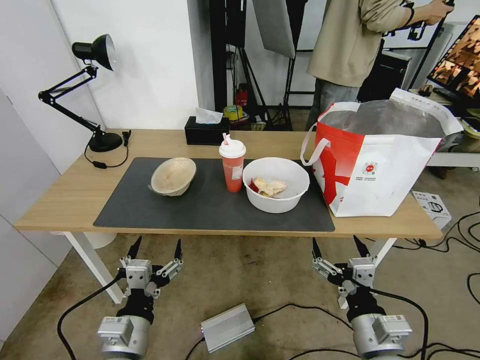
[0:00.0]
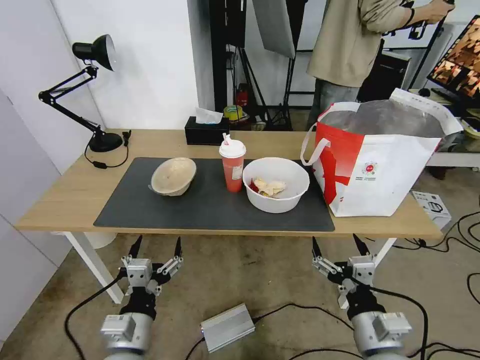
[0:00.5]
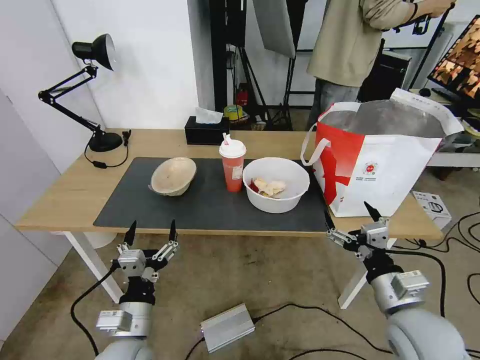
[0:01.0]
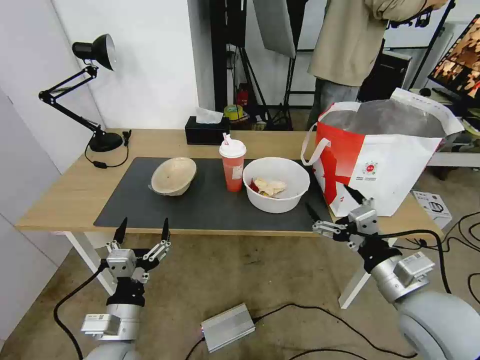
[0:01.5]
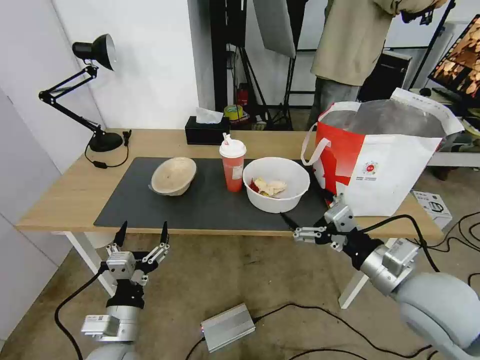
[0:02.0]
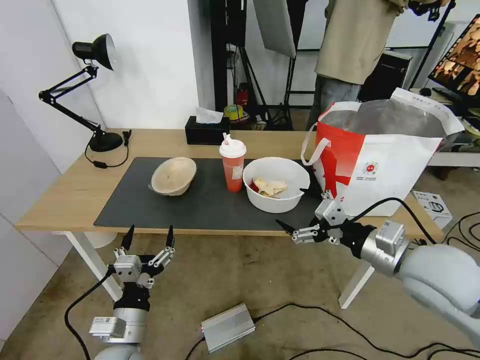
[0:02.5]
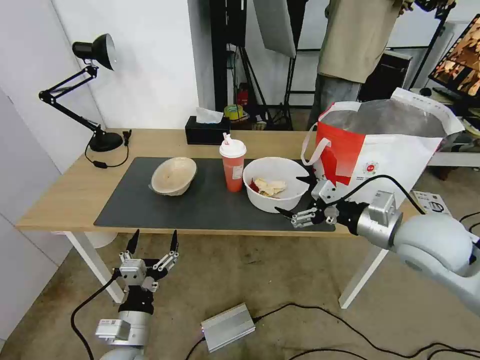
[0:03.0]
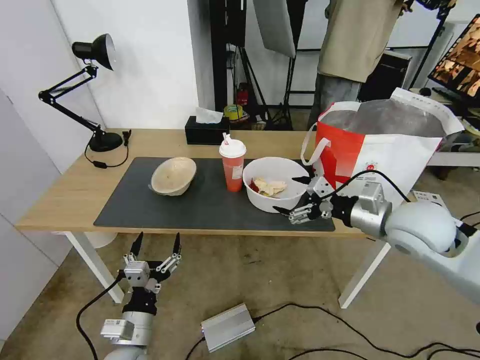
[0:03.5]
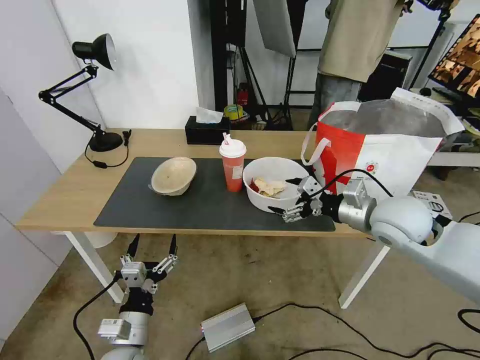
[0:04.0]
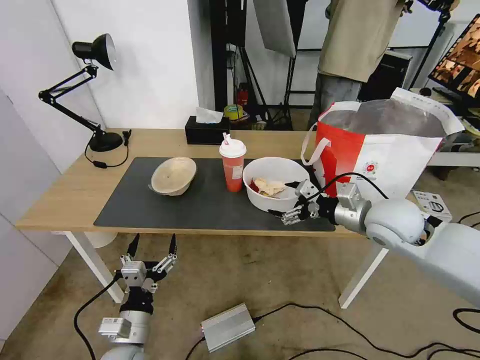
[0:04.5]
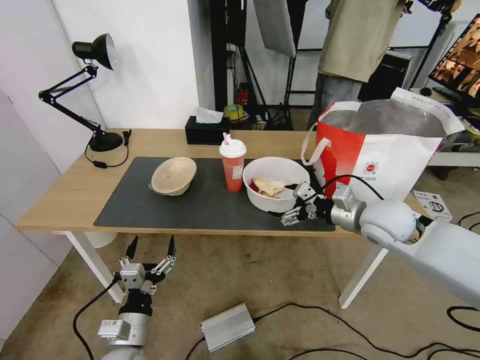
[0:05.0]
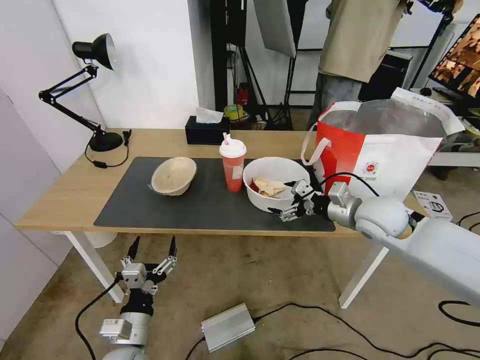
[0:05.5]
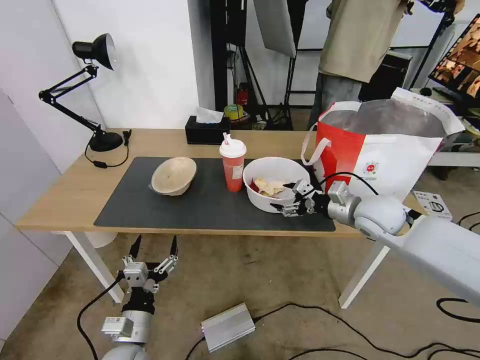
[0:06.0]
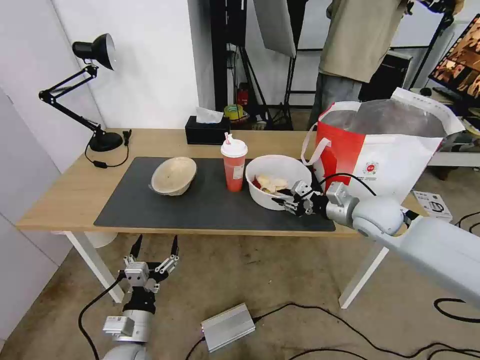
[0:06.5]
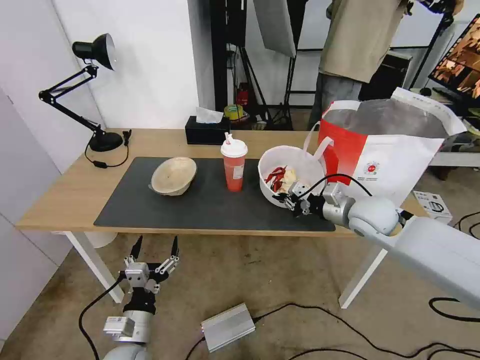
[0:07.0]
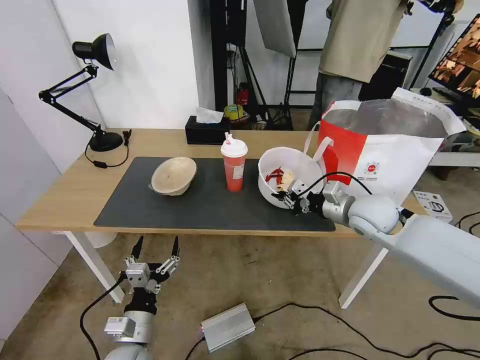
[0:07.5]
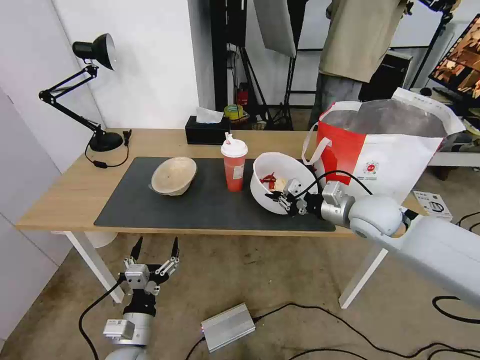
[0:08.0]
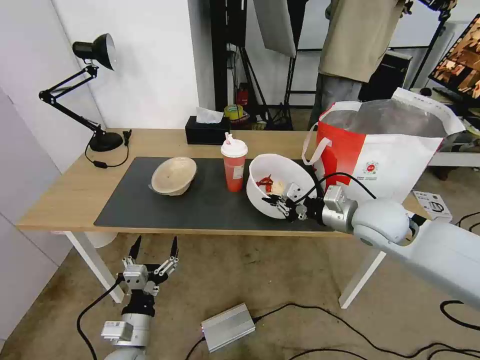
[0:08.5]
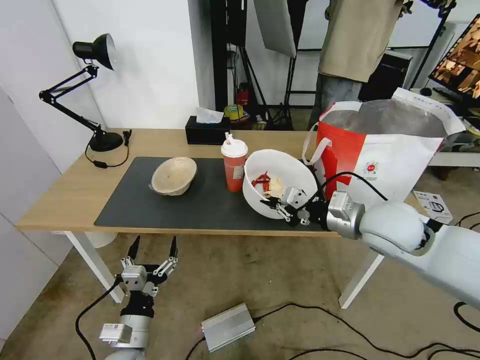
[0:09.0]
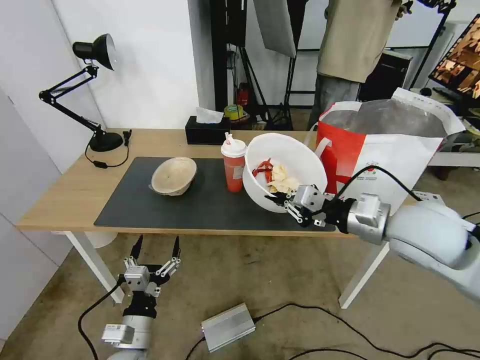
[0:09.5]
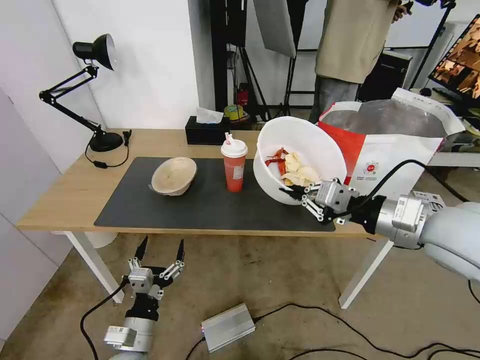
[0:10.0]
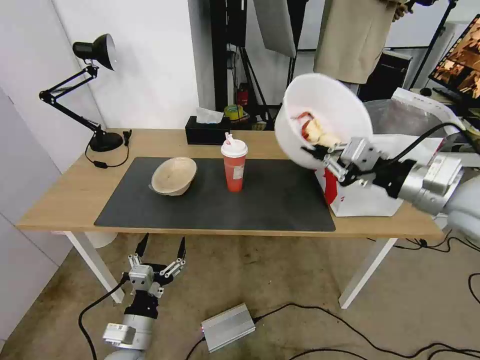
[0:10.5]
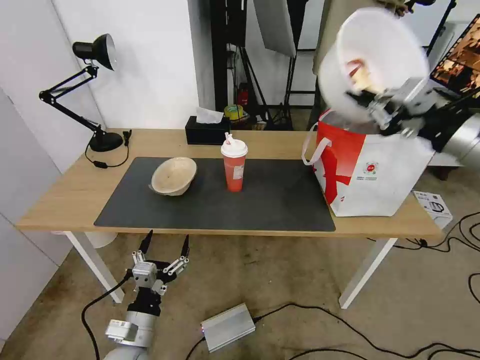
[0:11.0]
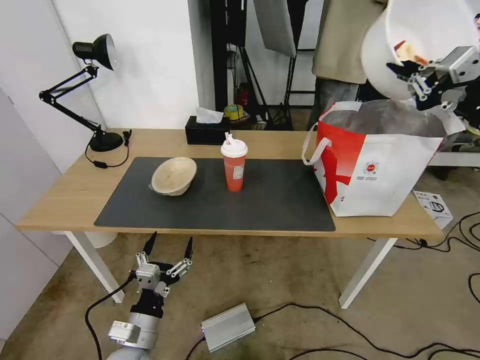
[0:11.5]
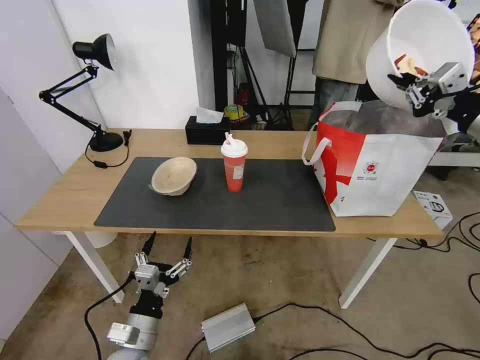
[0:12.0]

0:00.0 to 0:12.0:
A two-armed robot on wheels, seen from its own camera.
Task of the whole recording: Pick up the trash from the table and place it into the takeout bag.
0:02.0 to 0:04.0: The right gripper heads forward, covering roughly 15 cm.
0:04.0 to 0:06.0: The right gripper changes place by about 5 cm.
0:06.0 to 0:08.0: The right gripper closes.
0:08.0 to 0:10.0: The right gripper heads backward and upward, covering some 15 cm.
0:10.0 to 0:12.0: The right gripper moves to the right, forward and upward, approximately 20 cm.

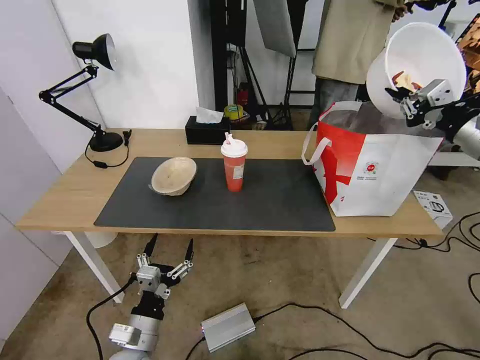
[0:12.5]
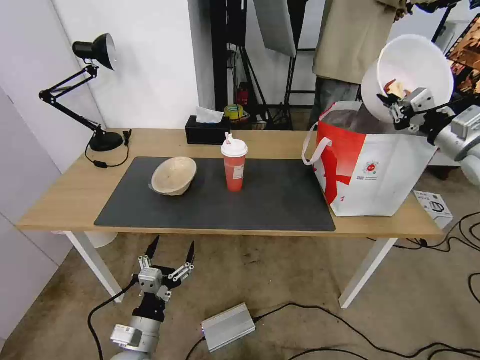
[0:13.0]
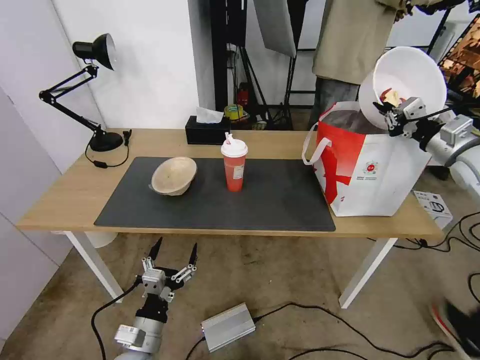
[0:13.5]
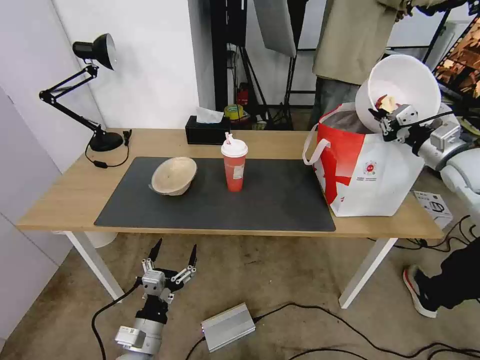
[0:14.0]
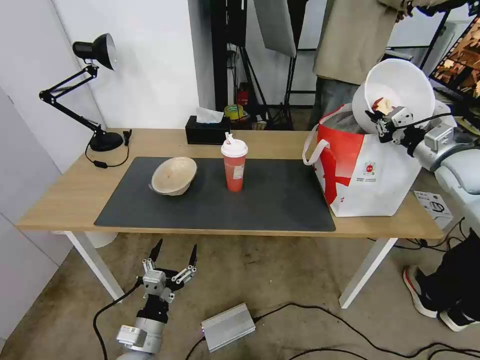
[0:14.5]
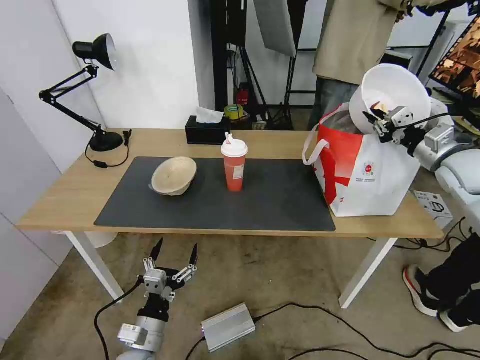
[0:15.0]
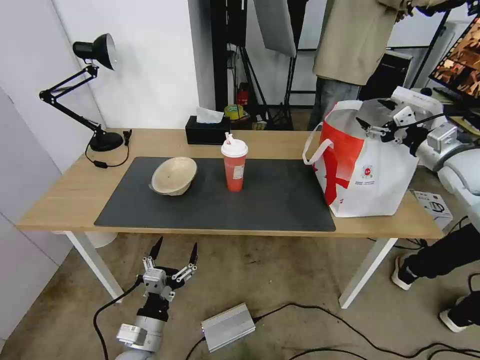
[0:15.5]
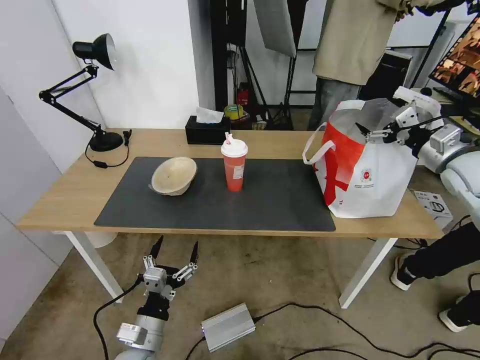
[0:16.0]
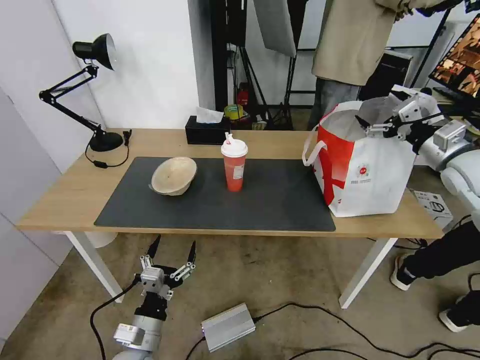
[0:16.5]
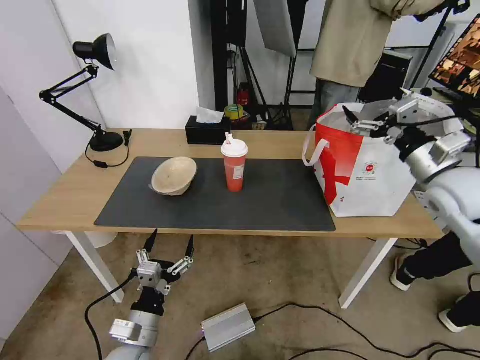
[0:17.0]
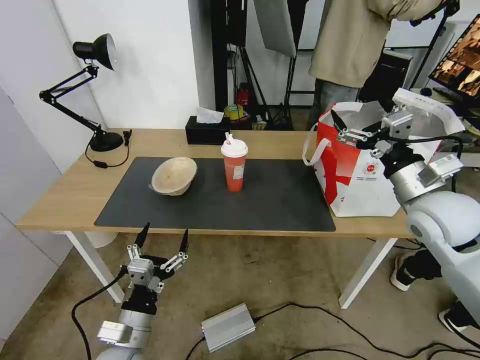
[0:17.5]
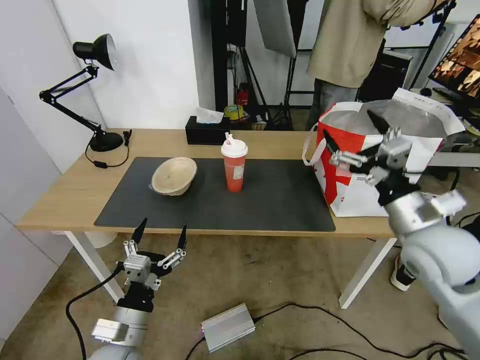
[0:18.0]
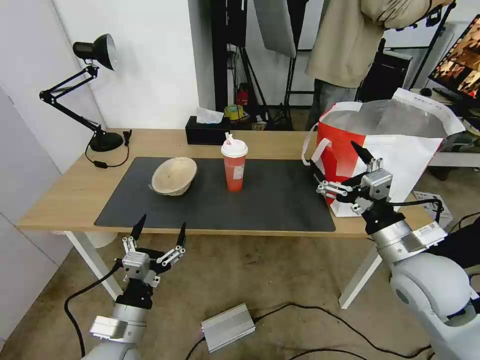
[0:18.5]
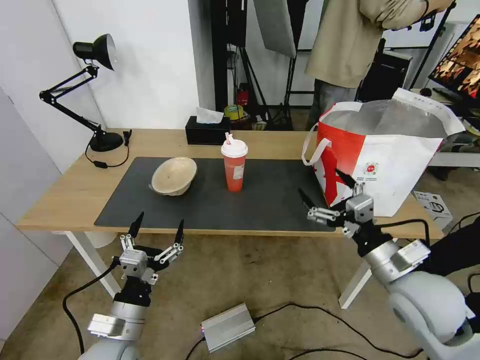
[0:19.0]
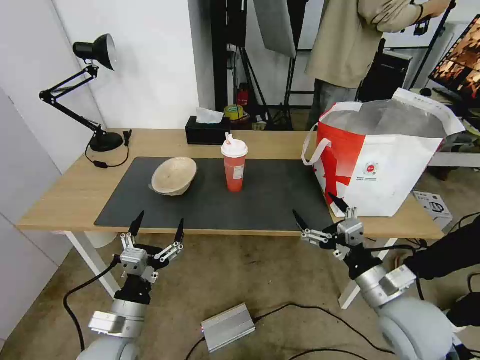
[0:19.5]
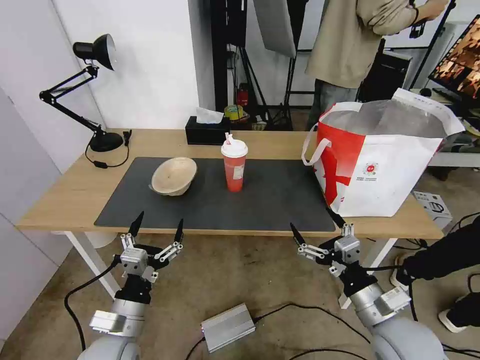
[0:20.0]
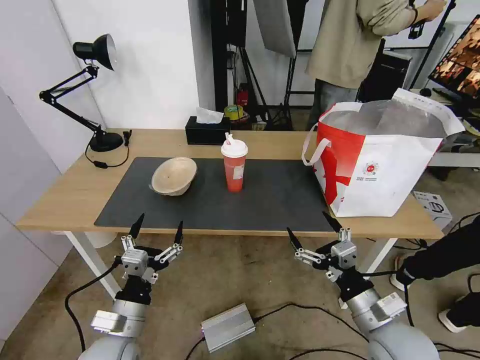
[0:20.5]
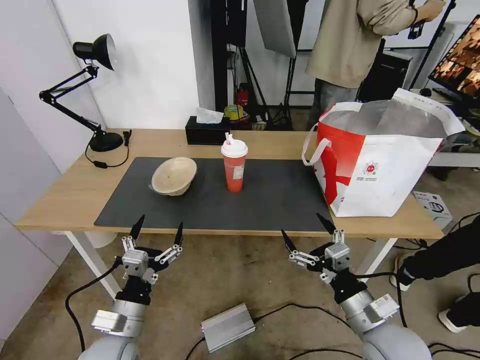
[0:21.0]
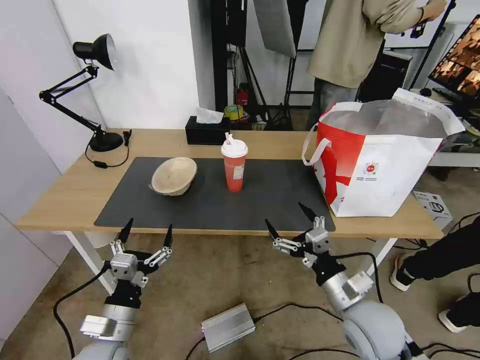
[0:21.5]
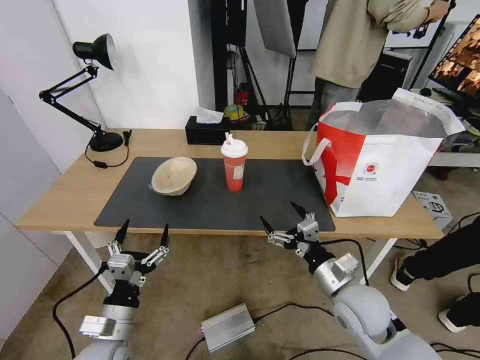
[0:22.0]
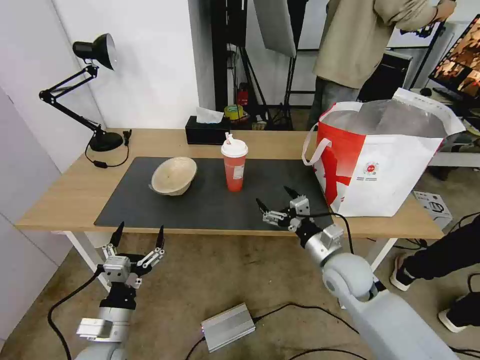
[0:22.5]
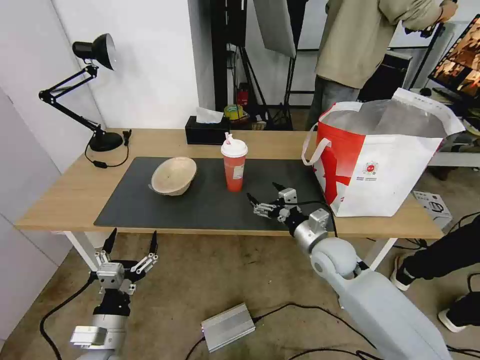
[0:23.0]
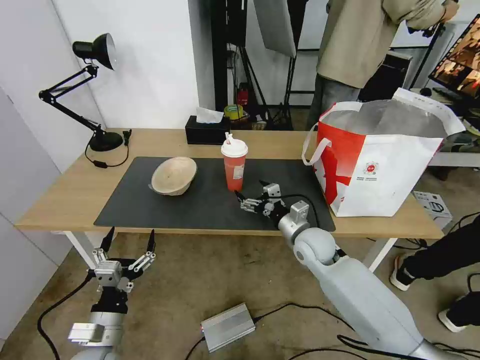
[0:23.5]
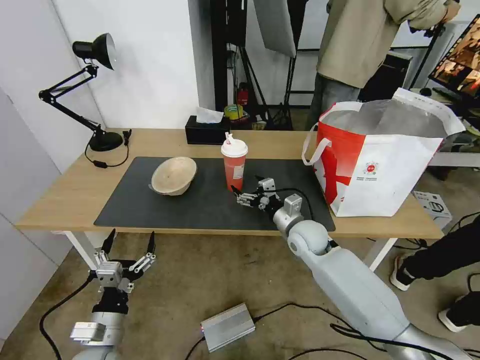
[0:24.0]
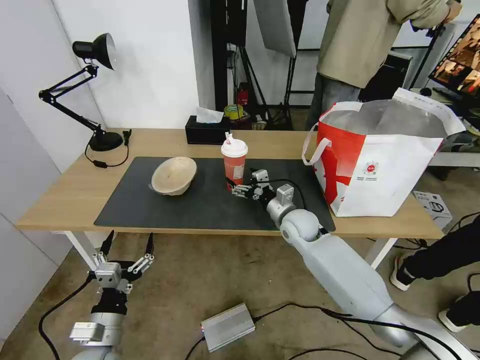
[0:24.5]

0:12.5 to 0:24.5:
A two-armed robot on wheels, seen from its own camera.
Task of the whole recording: Pick up the trash from the table and place it into the takeout bag.
0:12.5 to 0:14.5: The right gripper heads downward and forward, covering some 10 cm.
0:14.5 to 0:16.5: The right gripper opens up.
0:16.5 to 0:18.5: The right gripper shifts about 25 cm backward, to the left and downward. The left gripper is displaced upward by about 5 cm.
0:18.5 to 0:20.5: The right gripper moves downward and backward, roughly 15 cm.
0:20.5 to 0:22.5: The right gripper moves forward, roughly 15 cm.
0:22.5 to 0:24.5: The right gripper heads forward and to the left, covering about 15 cm.

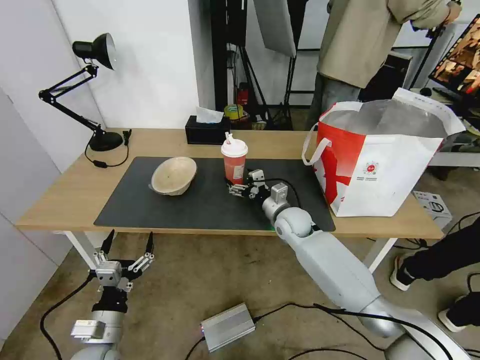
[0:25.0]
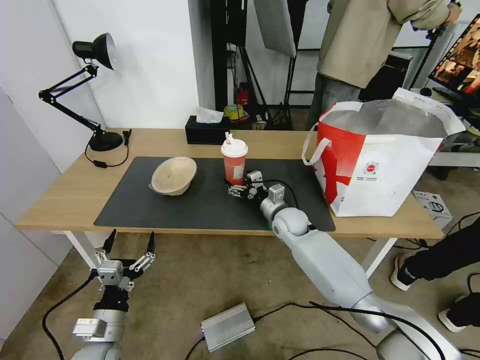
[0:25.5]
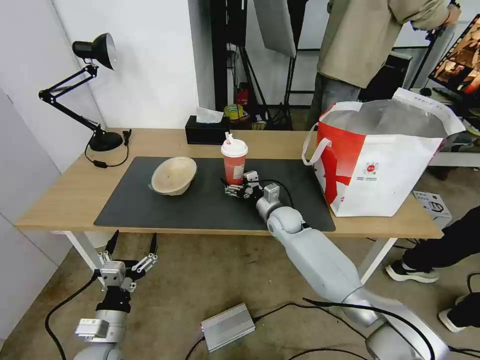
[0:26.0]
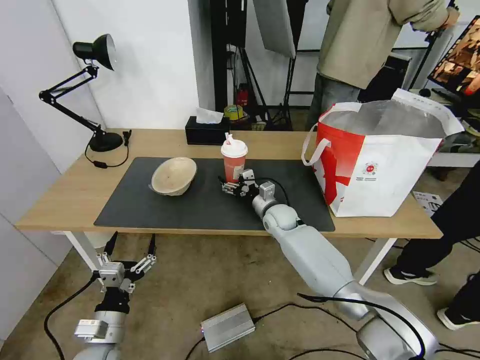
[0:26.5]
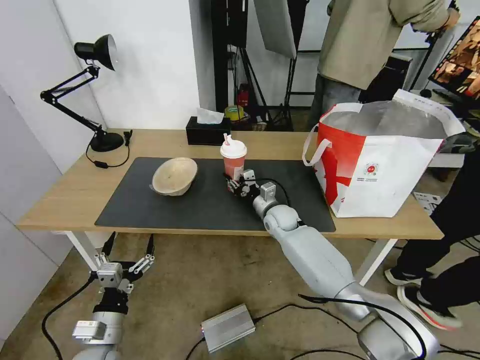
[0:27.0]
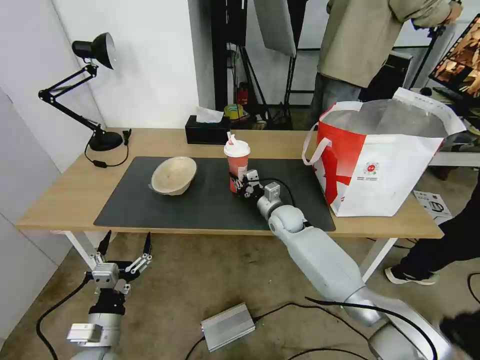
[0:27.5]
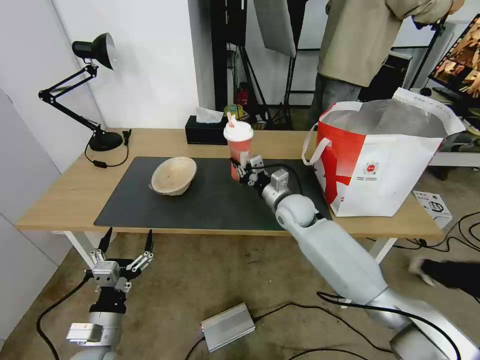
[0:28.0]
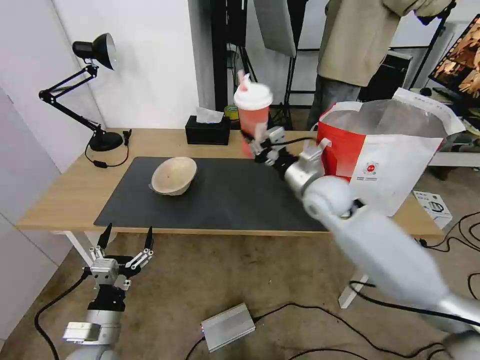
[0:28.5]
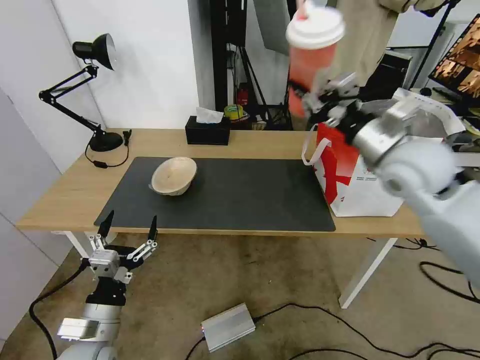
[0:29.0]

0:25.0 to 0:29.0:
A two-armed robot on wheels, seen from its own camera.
Task of the whole recording: Pick up the trash from the table and place it into the takeout bag.
0:25.0 to 0:27.0: The right gripper shifts by about 5 cm, and closes its fingers.
0:27.0 to 0:29.0: The right gripper heads upward, to the right and backward, covering some 35 cm; the left gripper moves upward, approximately 5 cm.
